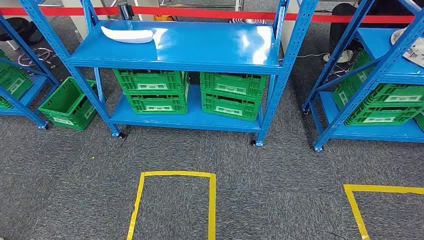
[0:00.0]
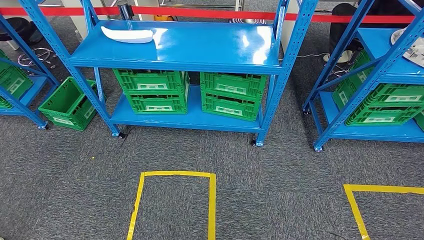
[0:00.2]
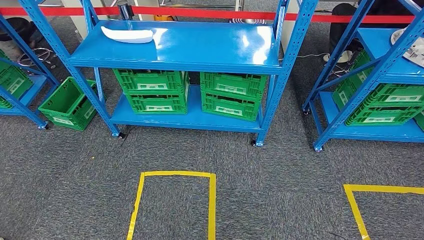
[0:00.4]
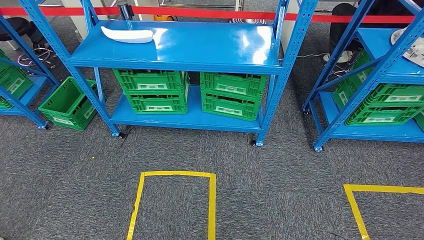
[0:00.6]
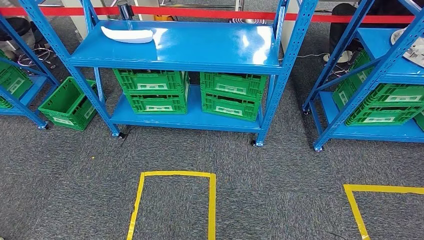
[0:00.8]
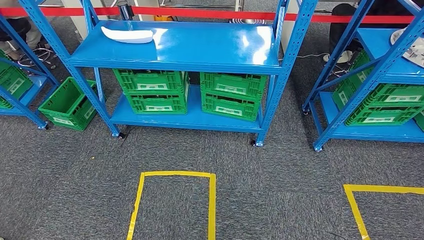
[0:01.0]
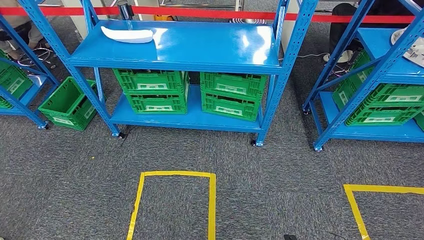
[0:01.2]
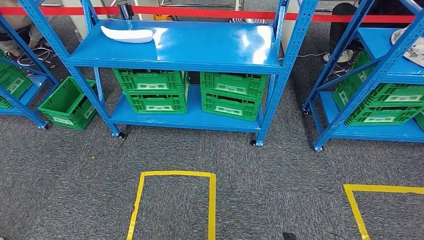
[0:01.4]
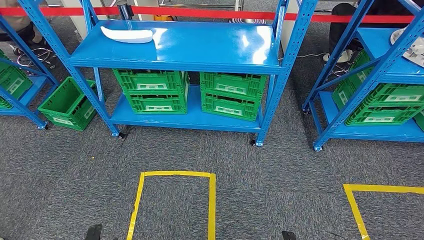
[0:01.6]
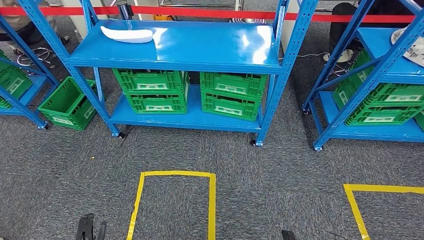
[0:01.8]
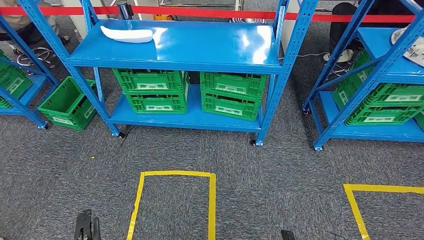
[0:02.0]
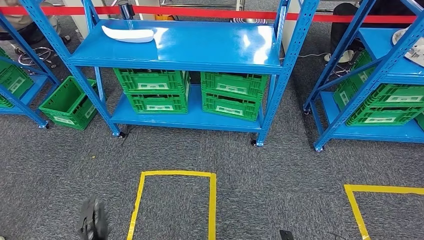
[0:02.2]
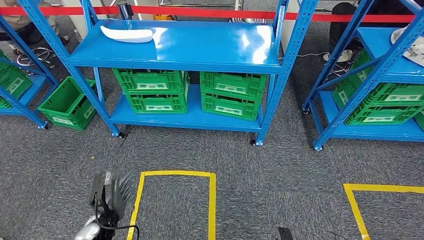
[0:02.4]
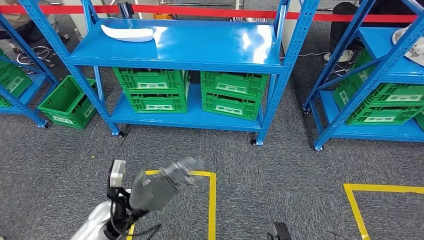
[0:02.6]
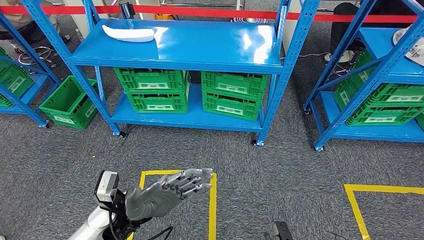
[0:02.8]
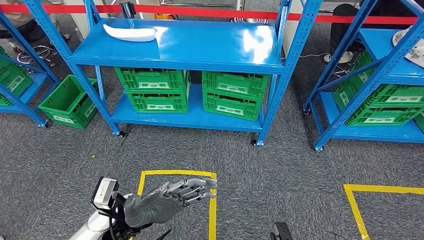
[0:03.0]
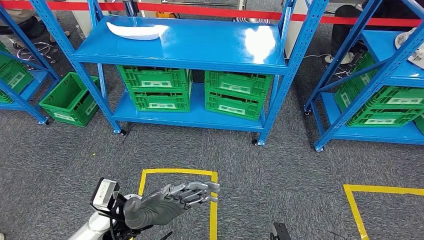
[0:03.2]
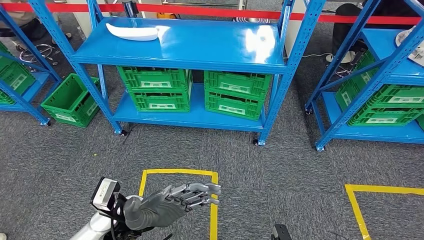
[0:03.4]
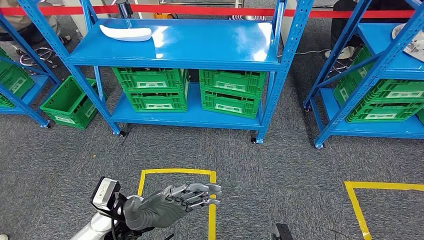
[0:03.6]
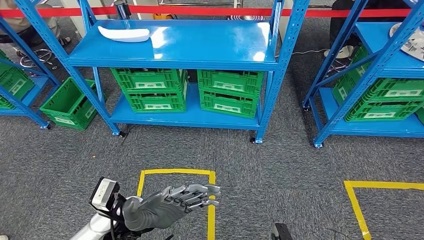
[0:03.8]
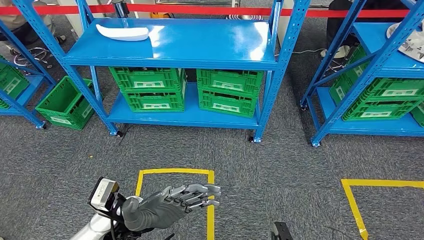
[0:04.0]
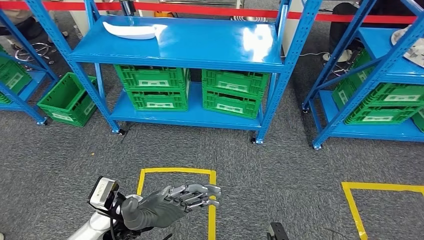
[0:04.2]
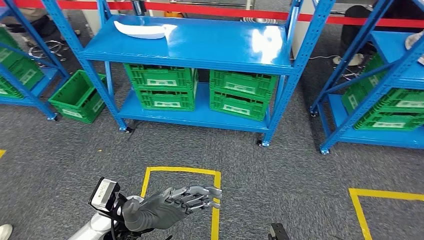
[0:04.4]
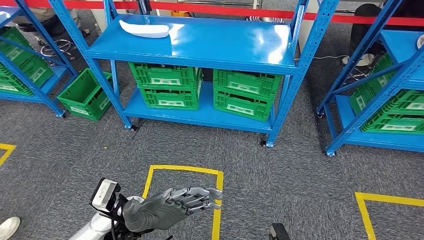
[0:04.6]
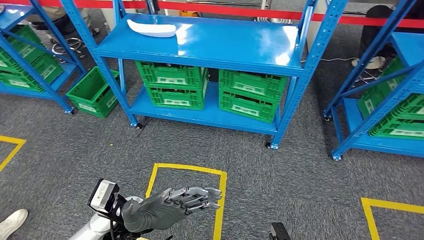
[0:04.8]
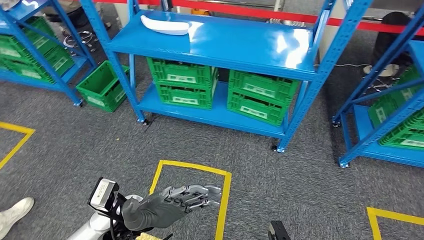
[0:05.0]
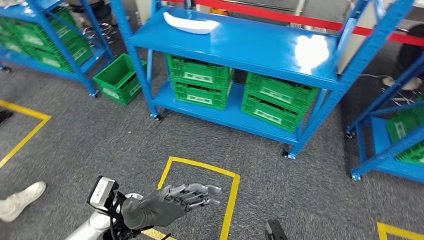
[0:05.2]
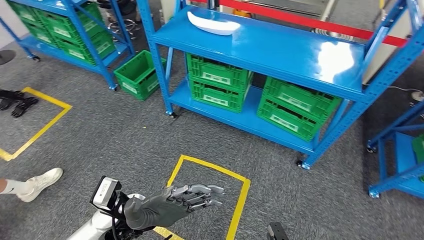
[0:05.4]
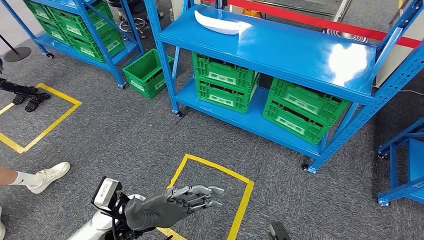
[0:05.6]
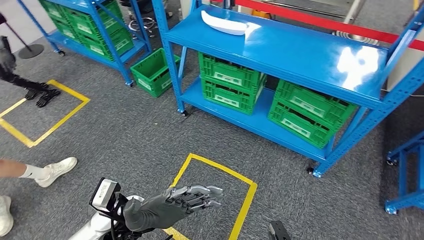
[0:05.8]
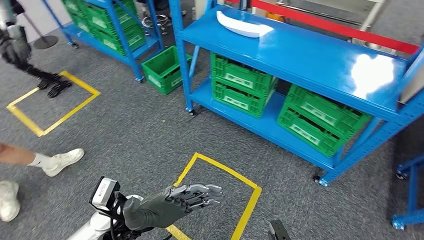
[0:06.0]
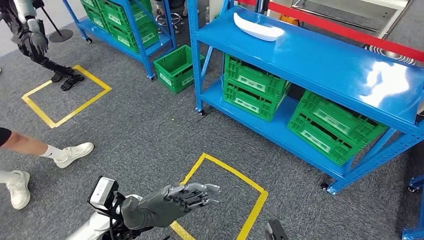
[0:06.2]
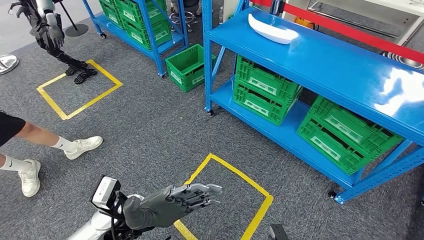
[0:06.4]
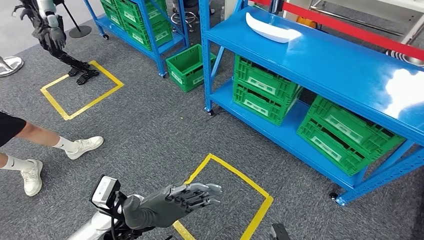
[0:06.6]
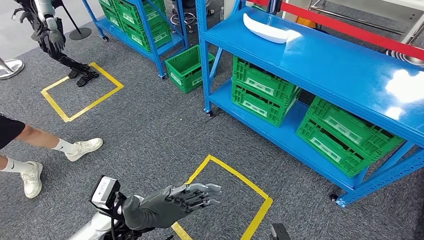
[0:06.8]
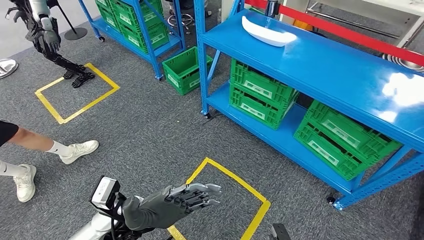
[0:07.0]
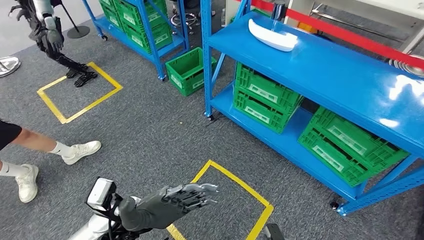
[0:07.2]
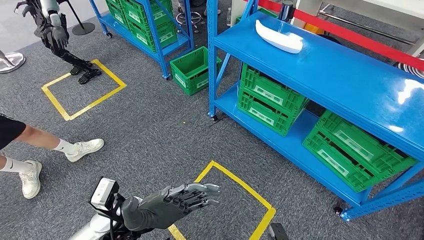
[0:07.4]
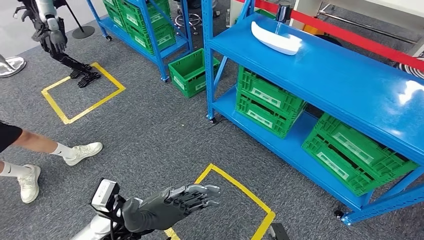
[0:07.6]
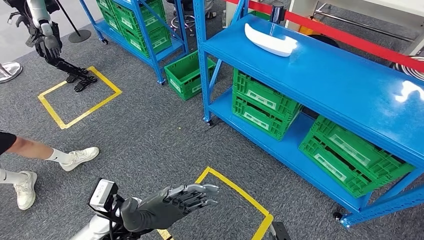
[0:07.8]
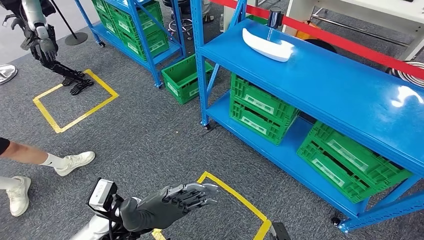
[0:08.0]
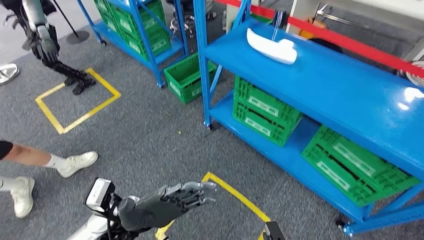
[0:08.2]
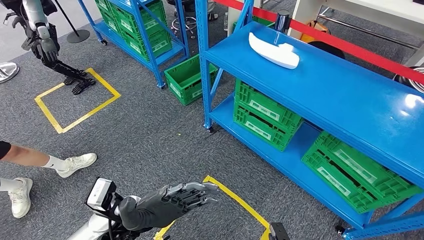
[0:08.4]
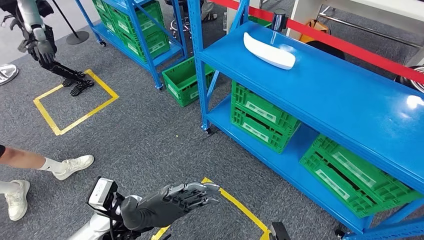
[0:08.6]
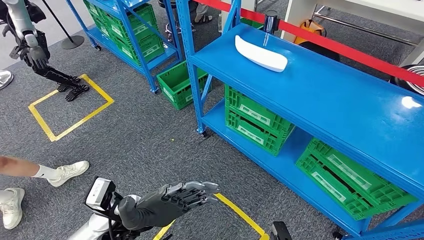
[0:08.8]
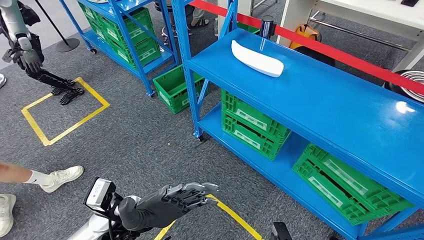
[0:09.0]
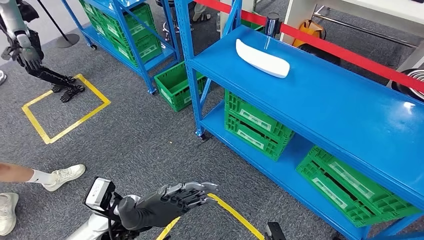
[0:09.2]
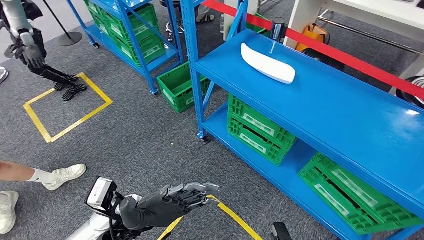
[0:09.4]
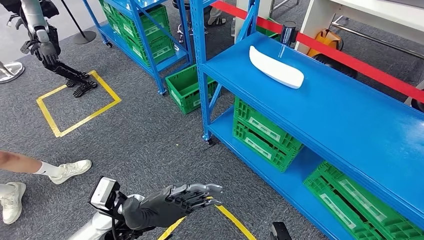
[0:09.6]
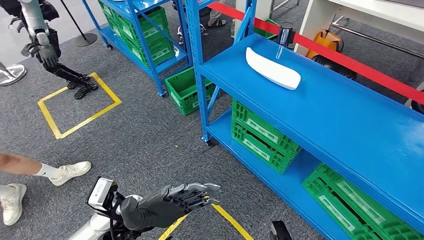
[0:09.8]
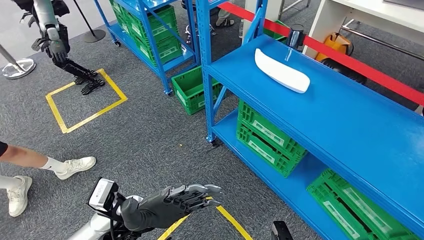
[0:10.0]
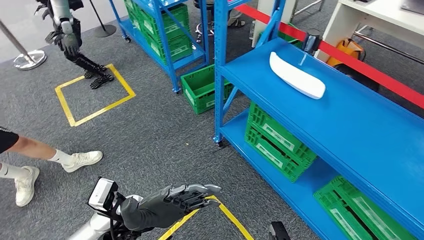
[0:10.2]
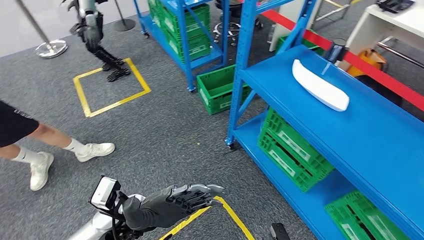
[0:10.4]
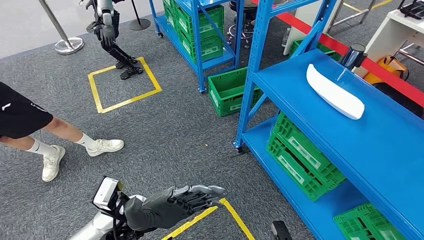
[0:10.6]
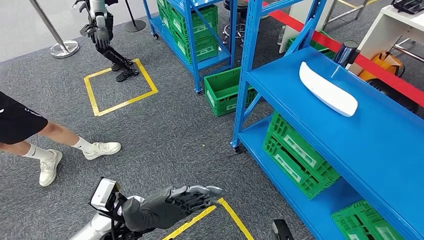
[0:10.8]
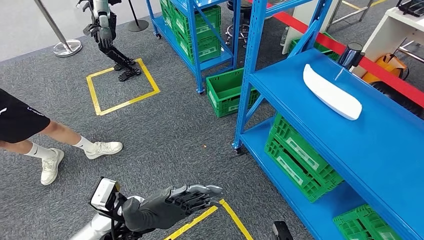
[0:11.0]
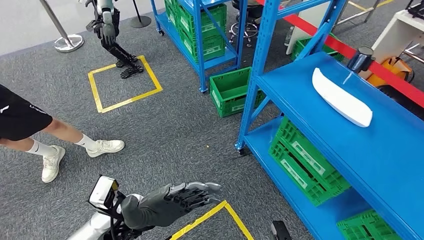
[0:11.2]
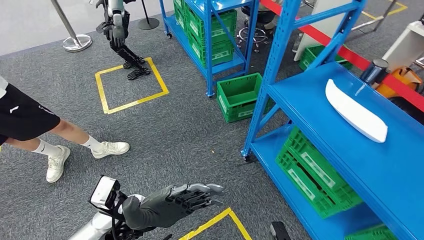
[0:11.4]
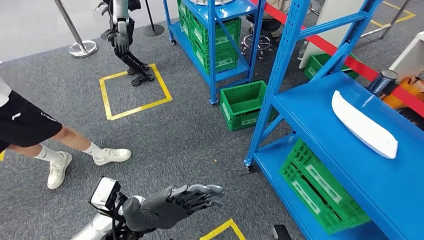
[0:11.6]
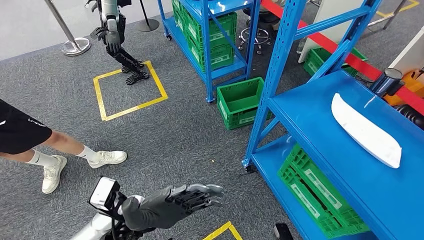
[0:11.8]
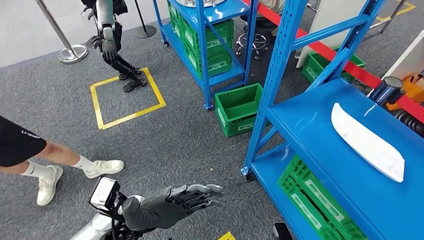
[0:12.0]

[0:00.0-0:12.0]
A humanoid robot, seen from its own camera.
0:01.6 to 0:03.0: The left hand heads upward, to the right and forward, covering roughly 35 cm.

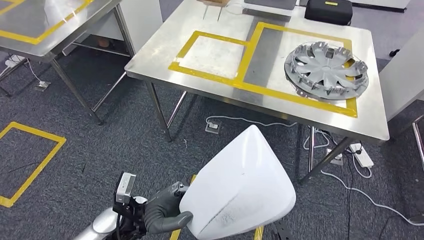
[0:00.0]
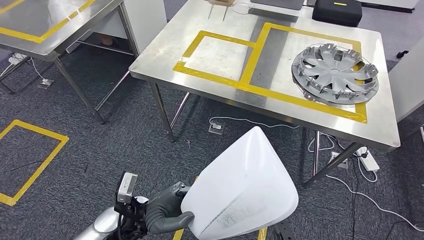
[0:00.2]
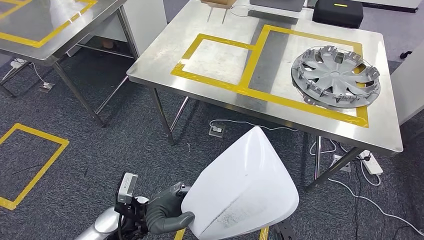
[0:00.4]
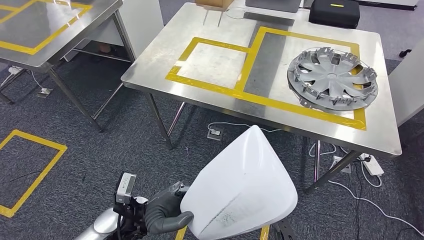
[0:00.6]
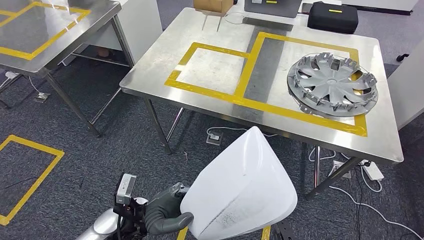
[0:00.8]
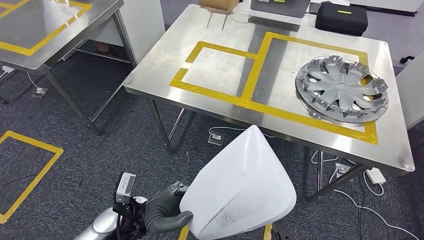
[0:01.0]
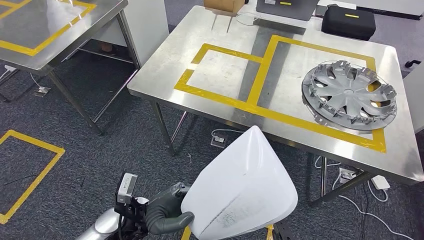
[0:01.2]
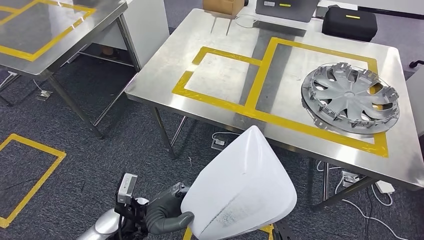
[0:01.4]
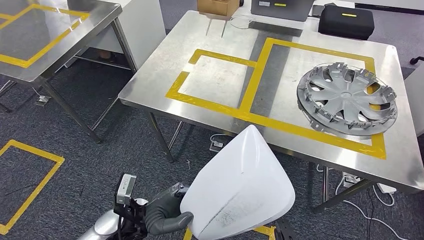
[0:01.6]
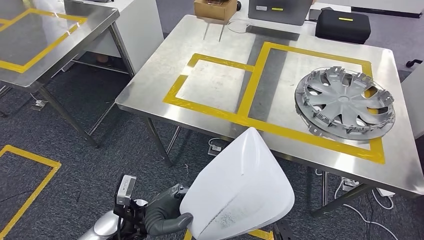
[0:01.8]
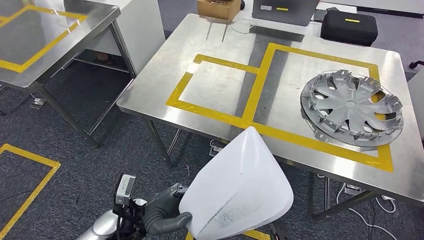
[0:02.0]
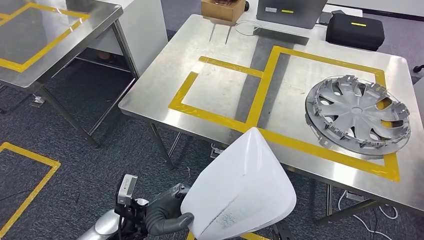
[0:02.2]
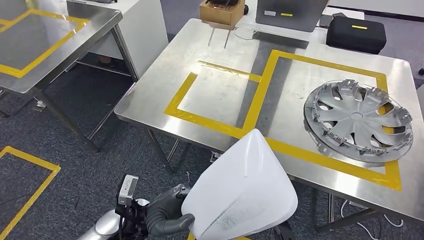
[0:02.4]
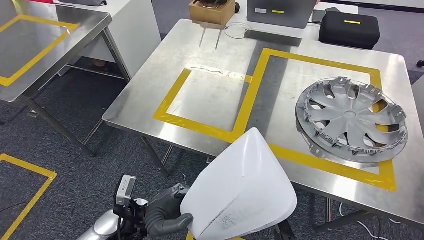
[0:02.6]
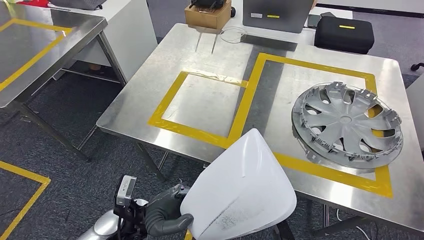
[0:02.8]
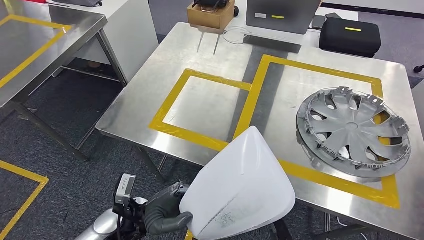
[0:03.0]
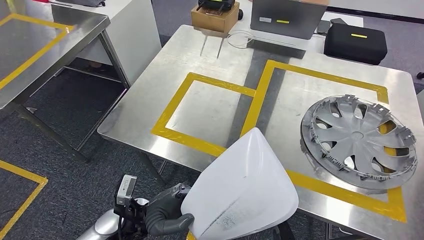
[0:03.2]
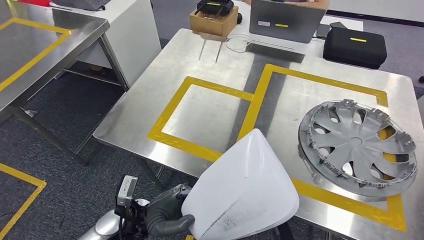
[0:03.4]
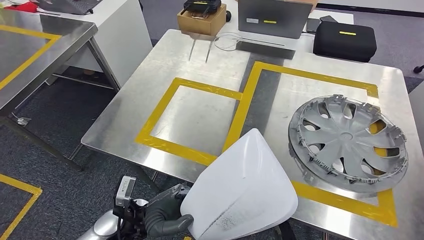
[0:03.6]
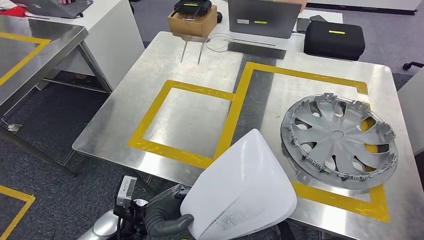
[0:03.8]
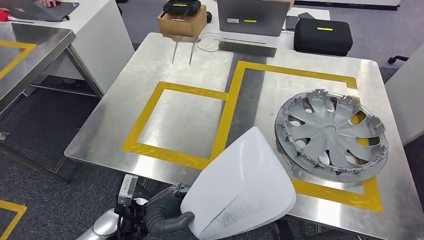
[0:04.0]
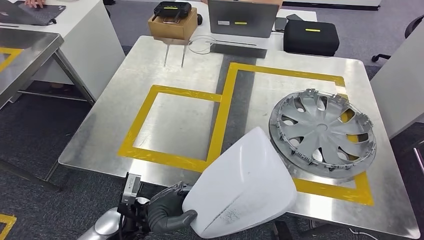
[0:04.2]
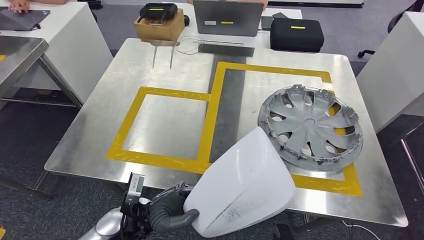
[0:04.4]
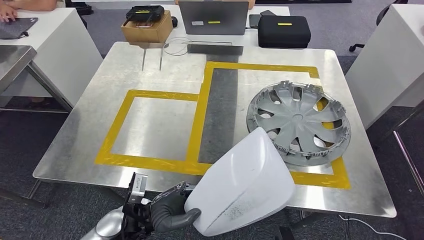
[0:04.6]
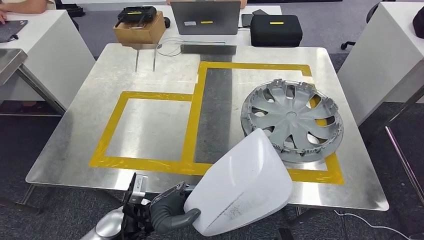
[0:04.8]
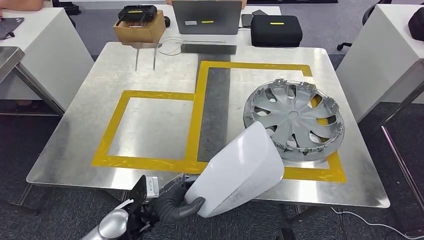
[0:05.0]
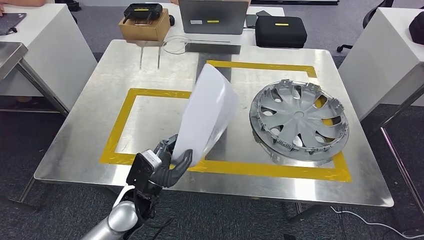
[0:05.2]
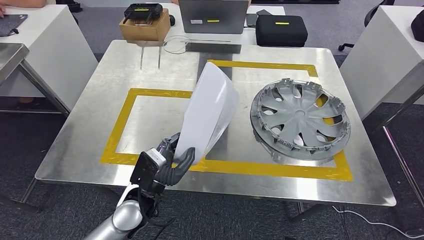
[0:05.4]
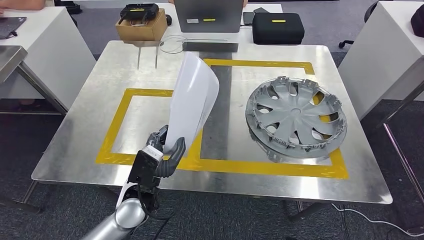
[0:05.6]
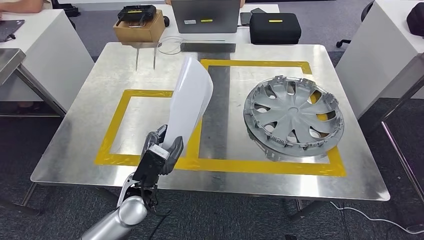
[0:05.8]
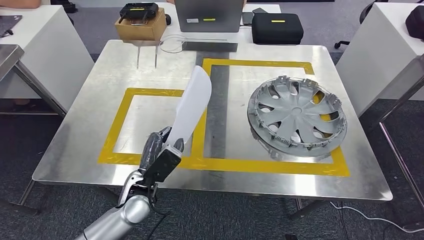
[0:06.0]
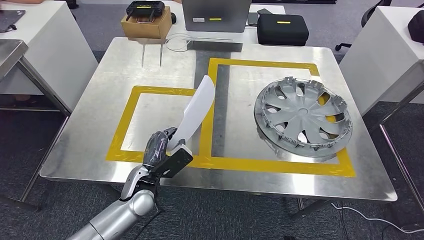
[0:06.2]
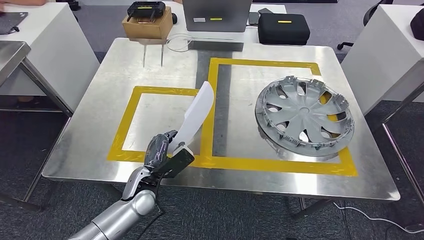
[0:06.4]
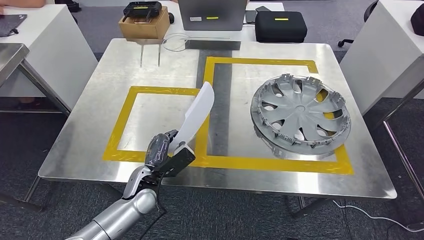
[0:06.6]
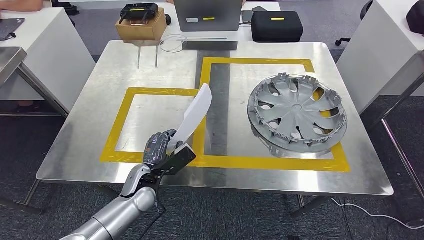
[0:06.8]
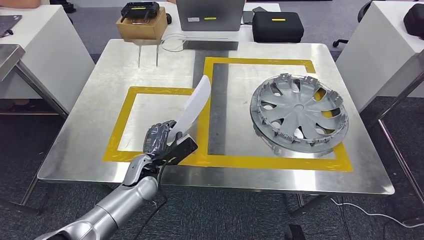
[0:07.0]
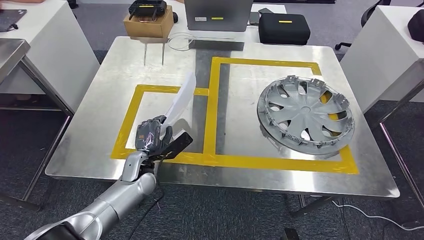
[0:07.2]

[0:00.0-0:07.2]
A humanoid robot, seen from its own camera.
Step, 0:00.0 to 0:03.4: Move the small component to the workbench.
